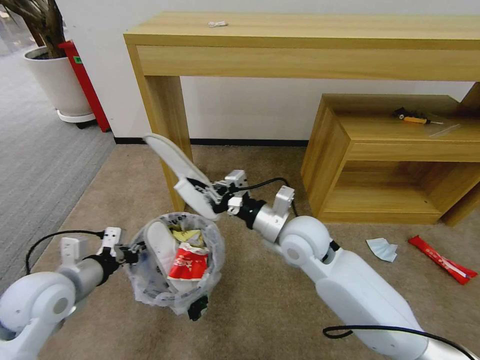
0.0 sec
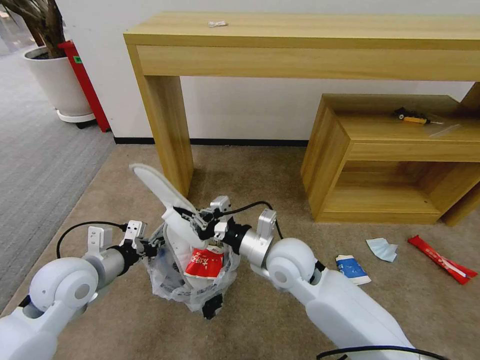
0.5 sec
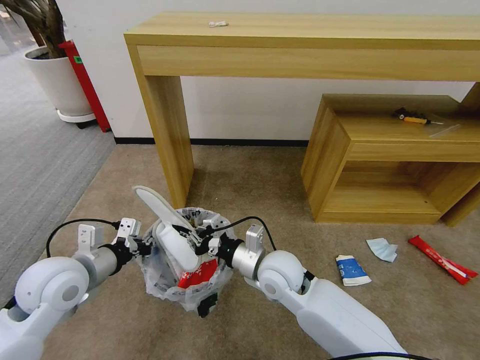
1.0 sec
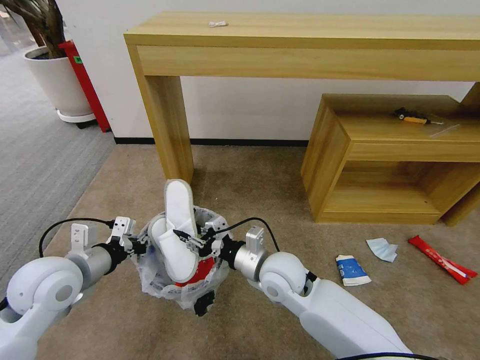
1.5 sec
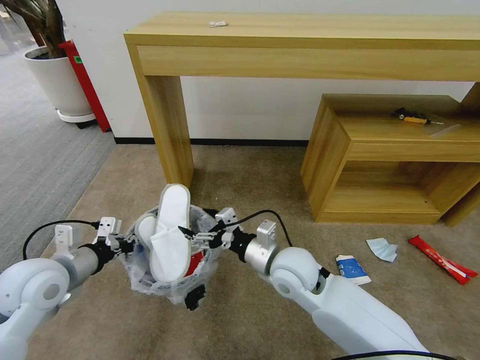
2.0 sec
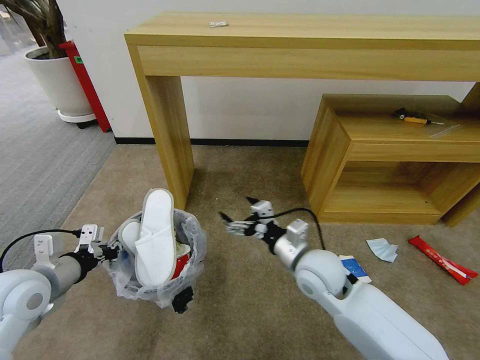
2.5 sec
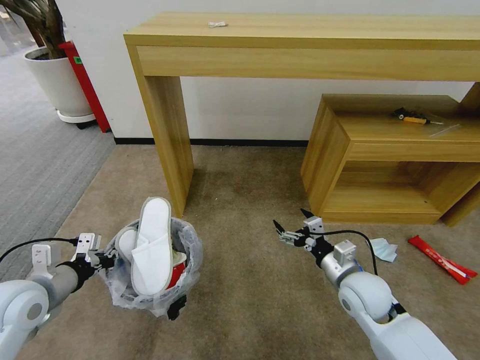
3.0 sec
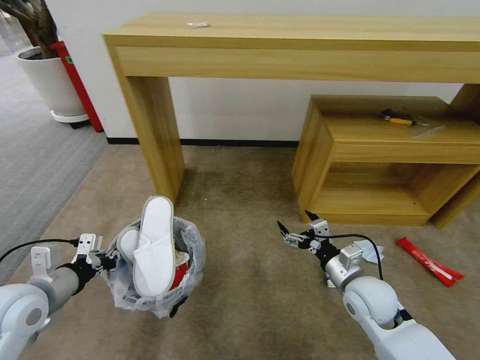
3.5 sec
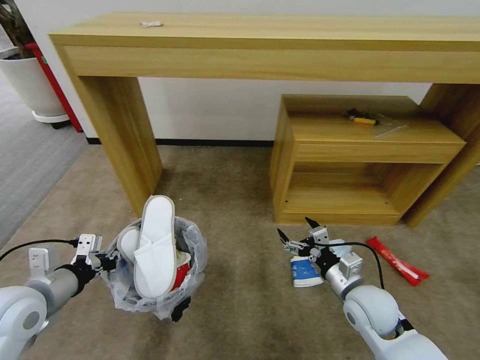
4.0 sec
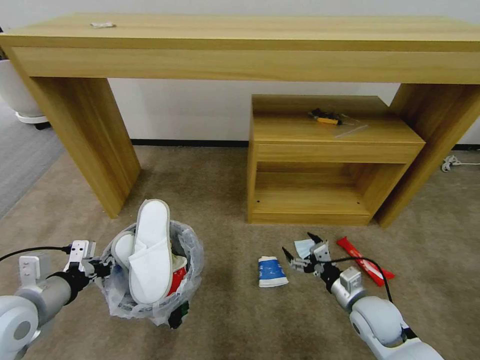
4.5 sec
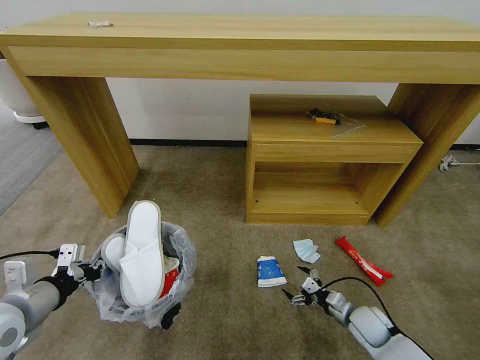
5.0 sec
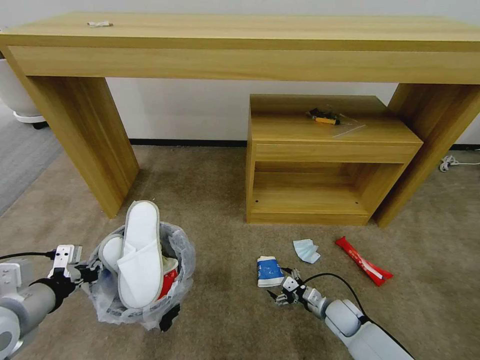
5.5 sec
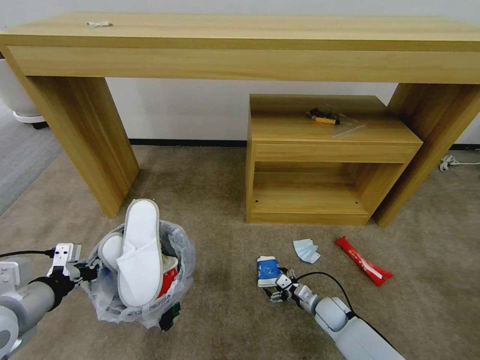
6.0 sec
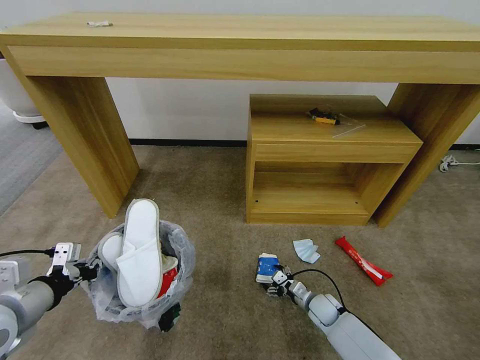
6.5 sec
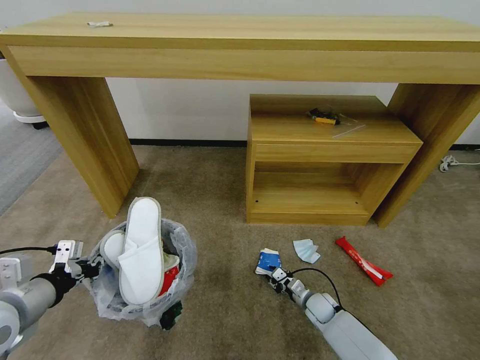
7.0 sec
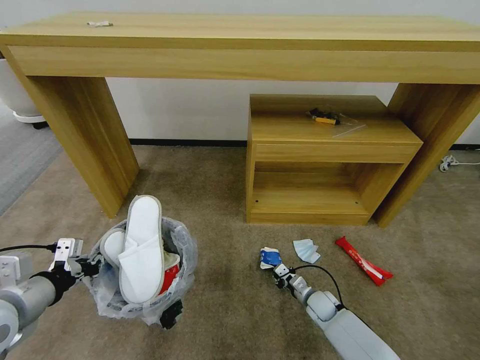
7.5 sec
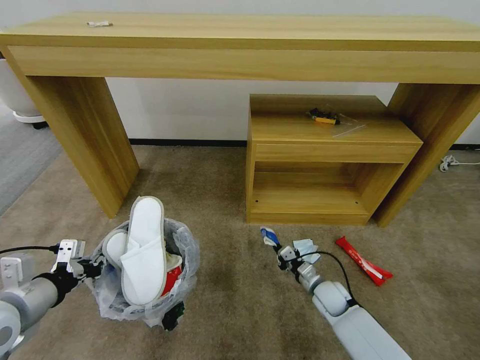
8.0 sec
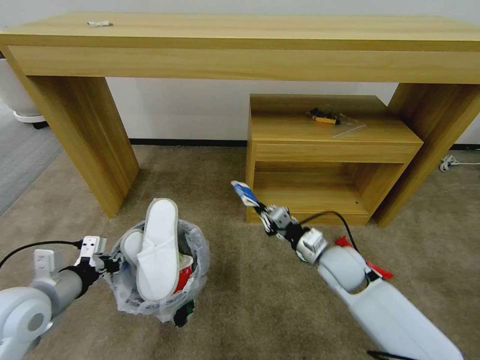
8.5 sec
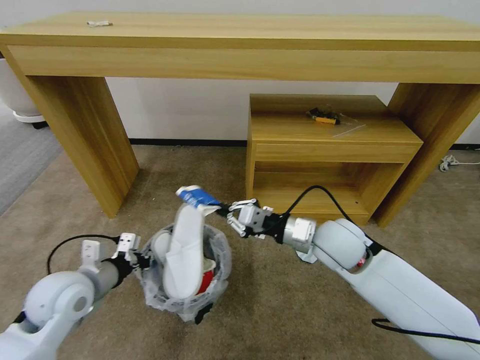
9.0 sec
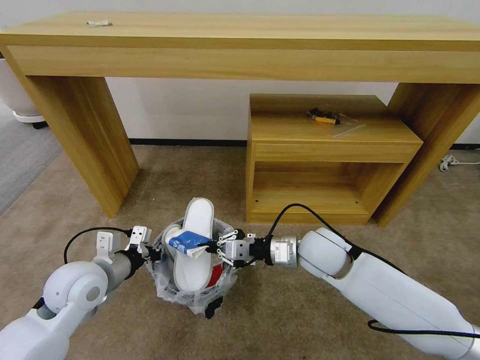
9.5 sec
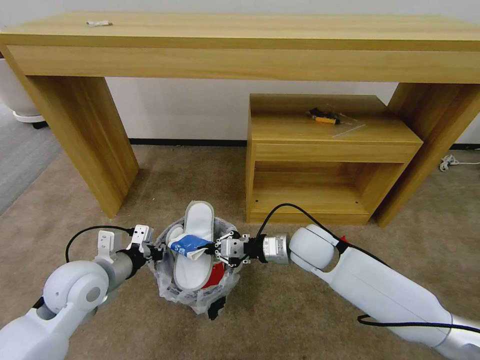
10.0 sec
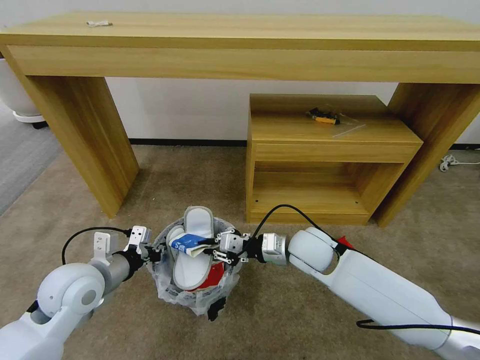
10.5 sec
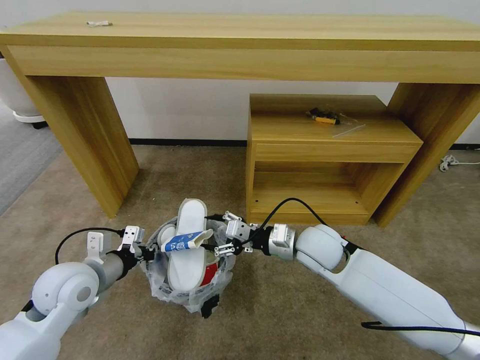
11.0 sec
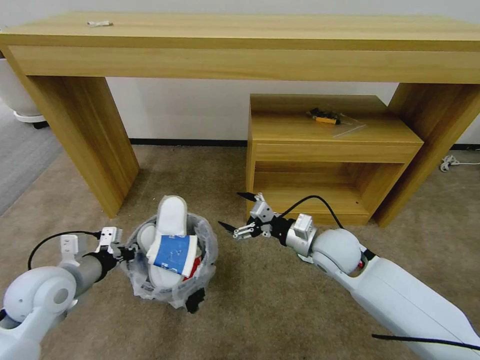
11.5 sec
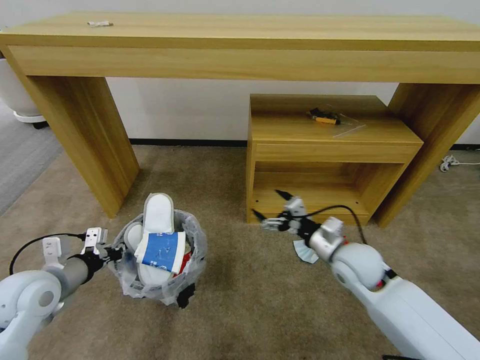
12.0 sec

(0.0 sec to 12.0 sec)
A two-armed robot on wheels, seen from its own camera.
Task of the whole recording: Pick up the trash bin and place the garbage on the floor into it.
0.0 sec - 2.0 sec: The right gripper moves downward, roughly 5 cm, and opens up.
2.0 sec - 4.0 sec: The right gripper heads to the right, covering approximately 15 cm, while the left gripper moves roughly 5 cm.
4.0 sec - 6.0 sec: The right gripper moves downward, approximately 20 cm.
6.0 sec - 8.0 sec: The right gripper moves upward, about 5 cm, and closes its fingers.
8.0 sec - 10.0 sec: The right gripper is displaced upward and to the left by approximately 25 cm. The left gripper goes about 10 cm to the right and forward.
10.0 sec - 12.0 sec: The right gripper shifts some 10 cm to the right, and opens up. The left gripper moves to the left, approximately 10 cm.

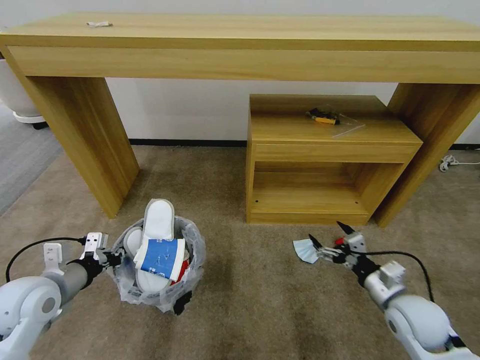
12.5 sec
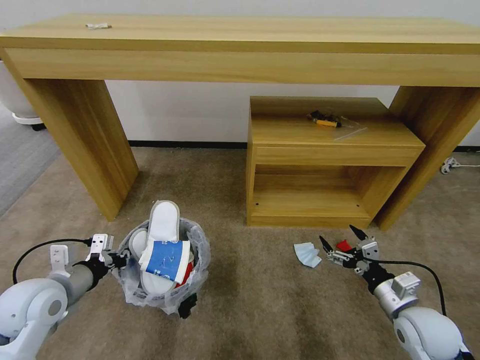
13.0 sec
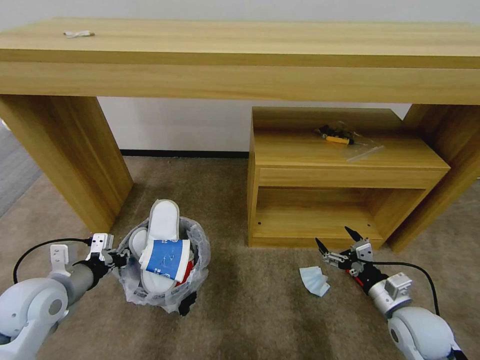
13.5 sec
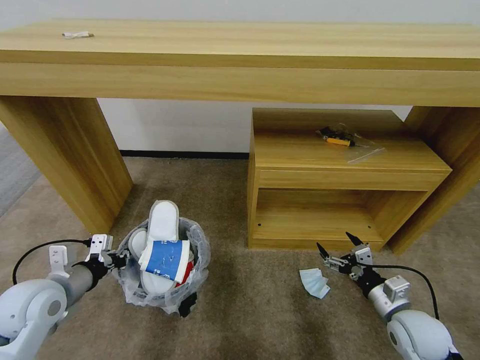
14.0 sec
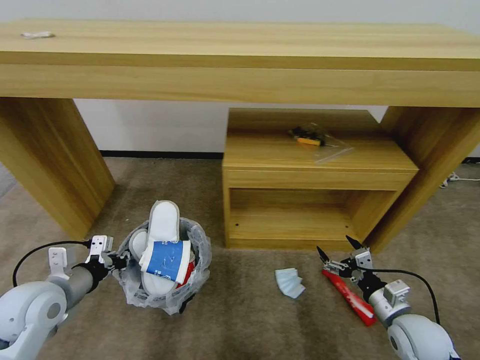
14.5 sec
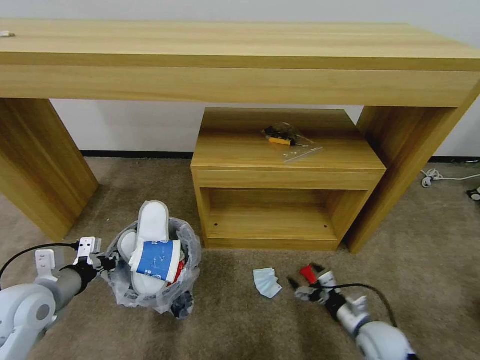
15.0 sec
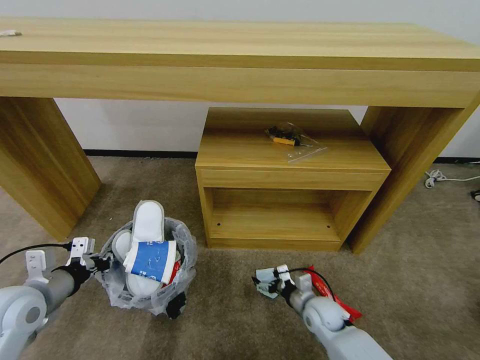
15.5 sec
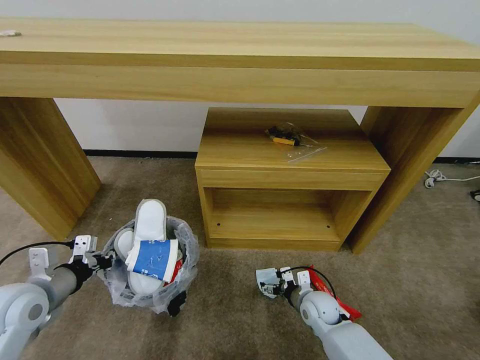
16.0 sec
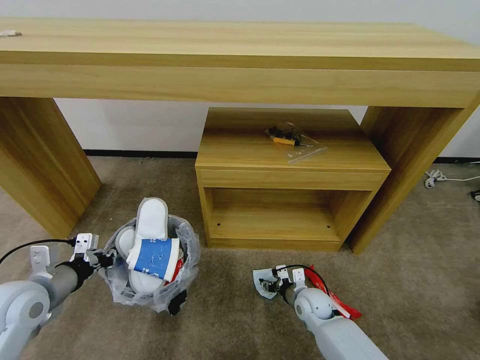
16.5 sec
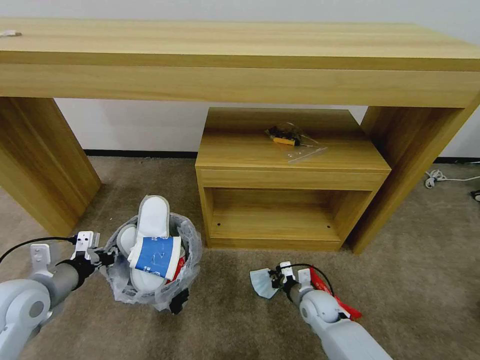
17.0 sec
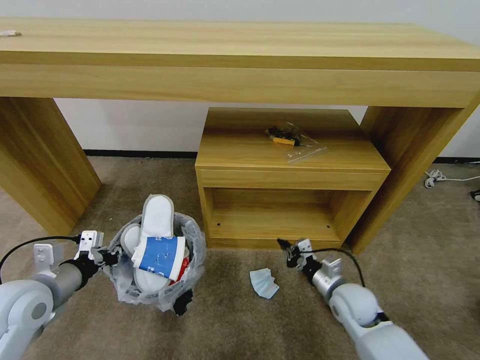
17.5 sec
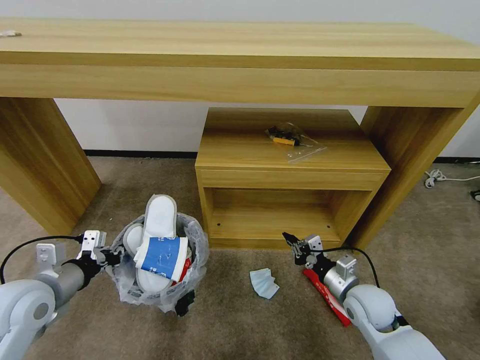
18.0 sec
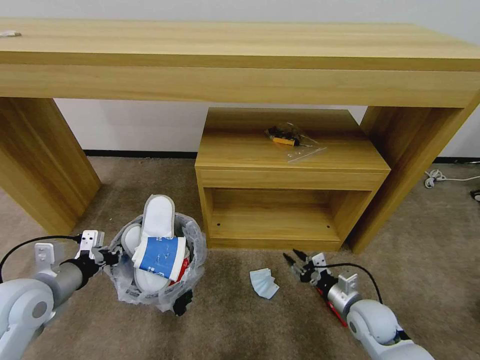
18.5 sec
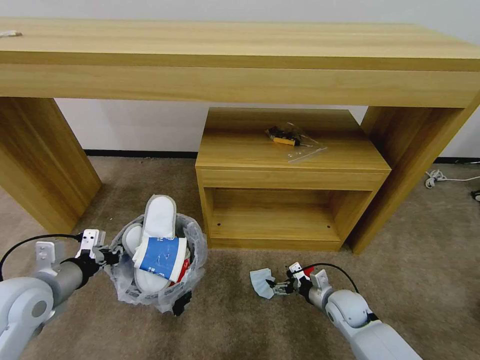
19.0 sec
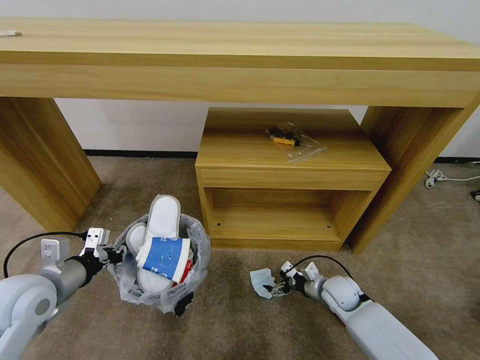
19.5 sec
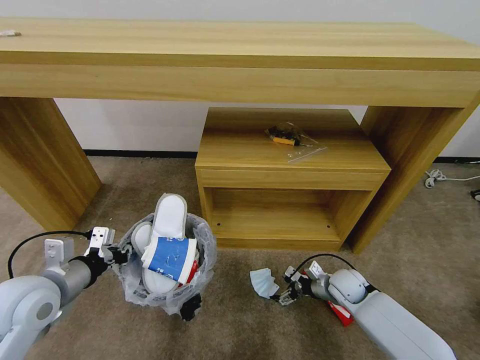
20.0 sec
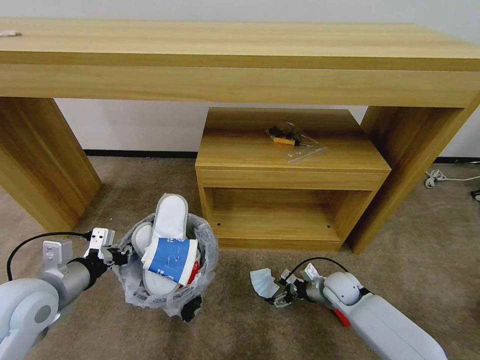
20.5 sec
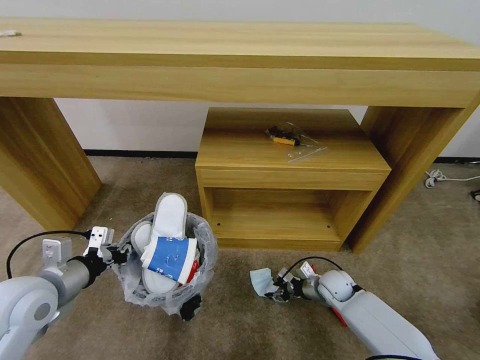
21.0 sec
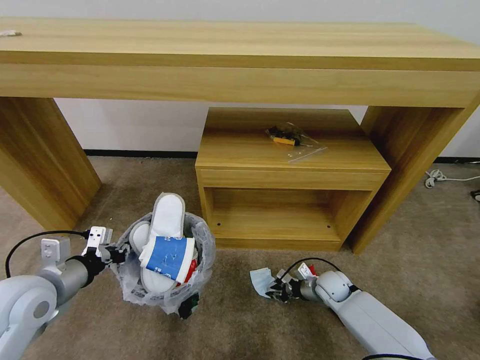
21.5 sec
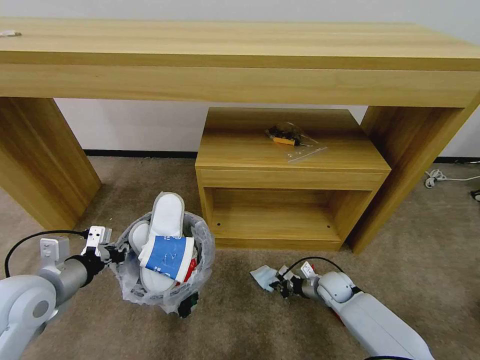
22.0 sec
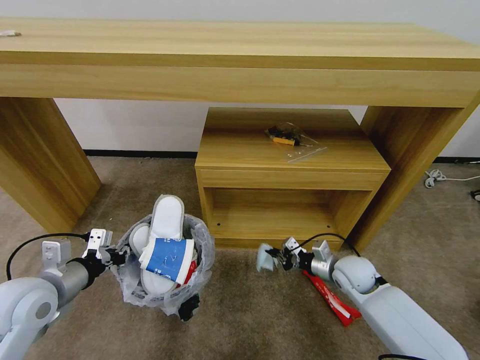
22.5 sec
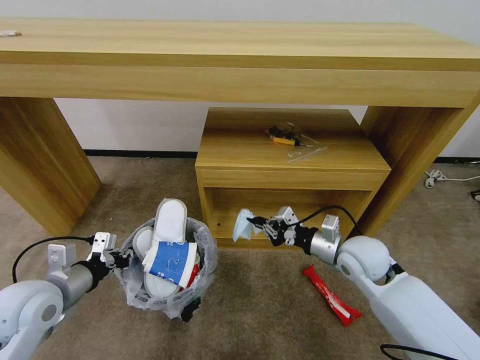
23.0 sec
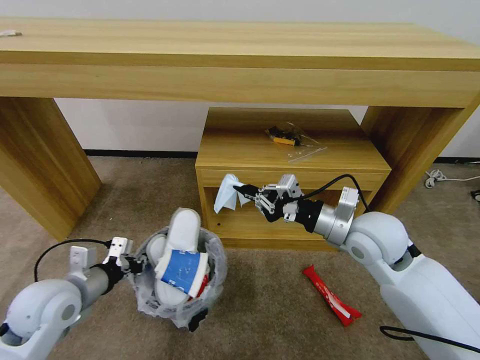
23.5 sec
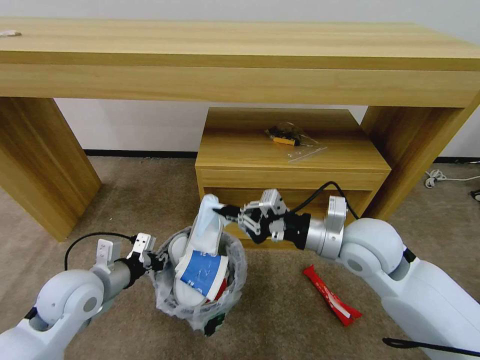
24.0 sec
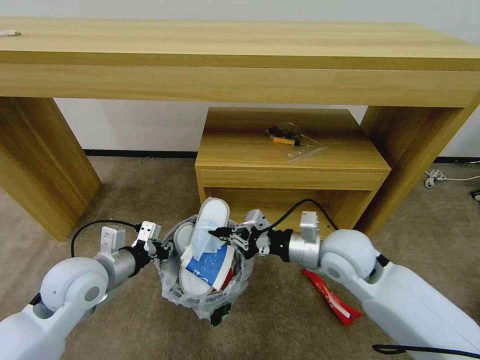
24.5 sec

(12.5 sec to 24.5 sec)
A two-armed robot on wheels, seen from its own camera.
Task of the whole recording: Pick up the trash bin and place the garbage on the floor into it.
14.5 sec - 16.5 sec: The right gripper travels to the left, downward and forward by approximately 25 cm, and closes.
16.5 sec - 18.5 sec: The right gripper heads to the right, upward and backward, covering some 15 cm, and closes, then opens again.
18.5 sec - 20.5 sec: The right gripper goes roughly 10 cm forward, and opens its fingers.
20.5 sec - 22.5 sec: The right gripper shifts some 5 cm upward, and closes up.
22.5 sec - 24.5 sec: The left gripper travels to the right by roughly 5 cm, while the right gripper goes about 20 cm upward and to the left.

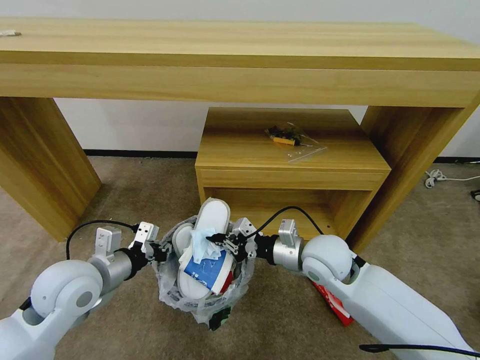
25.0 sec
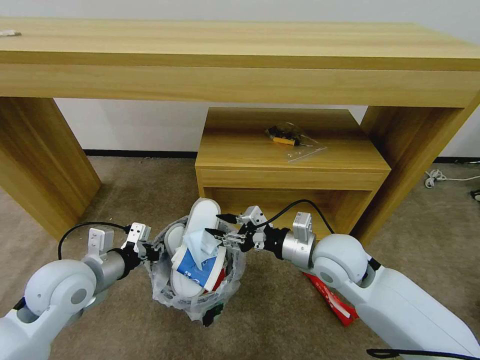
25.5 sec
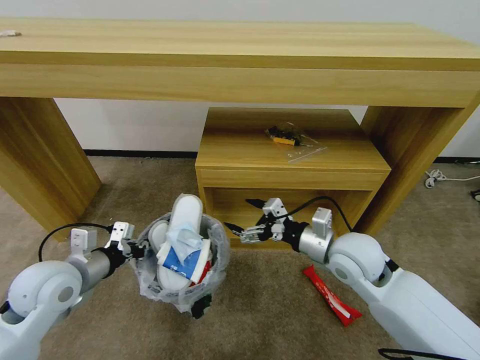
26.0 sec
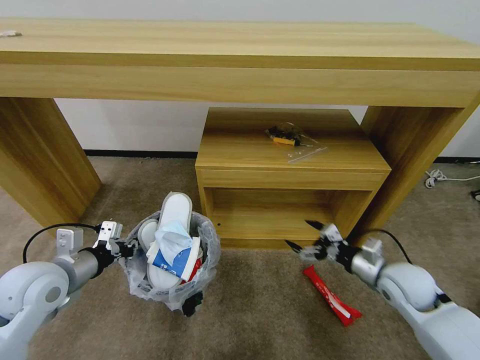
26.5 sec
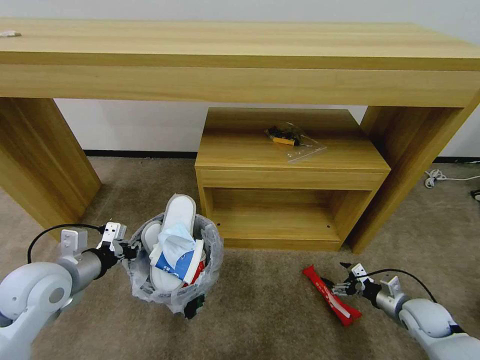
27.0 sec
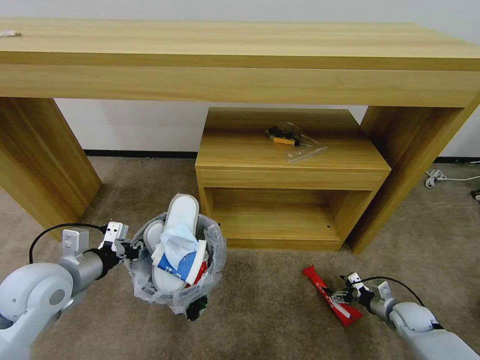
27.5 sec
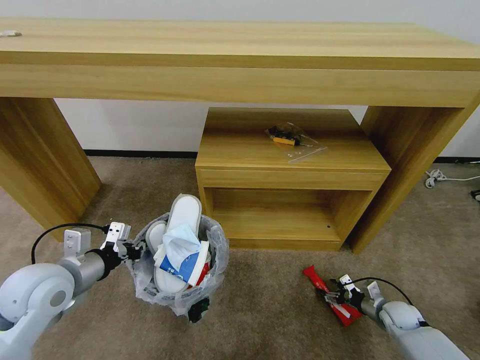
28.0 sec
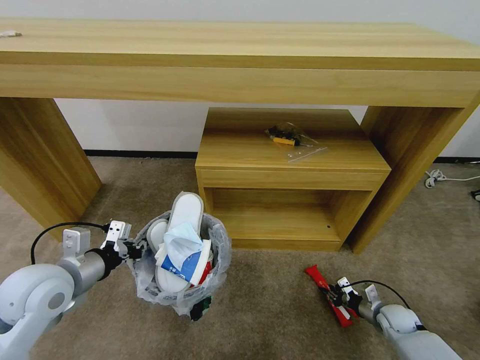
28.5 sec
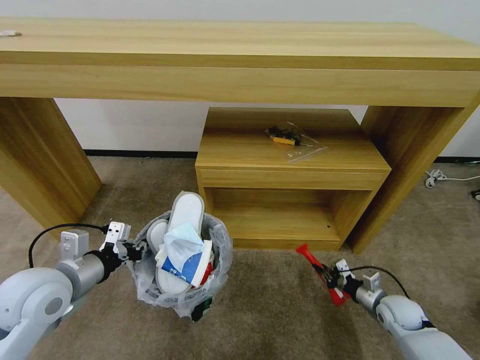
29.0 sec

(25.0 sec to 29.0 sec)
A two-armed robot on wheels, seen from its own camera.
Task of the whole recording: Pick up the trash bin and place the garbage on the floor into it.
25.0 sec - 27.0 sec: The left gripper travels to the left by approximately 5 cm. The right gripper goes about 35 cm to the right and downward, and opens.
27.0 sec - 29.0 sec: The right gripper closes.
